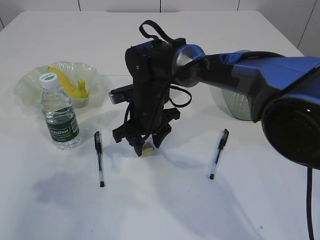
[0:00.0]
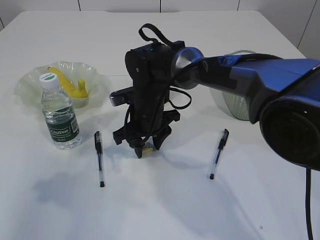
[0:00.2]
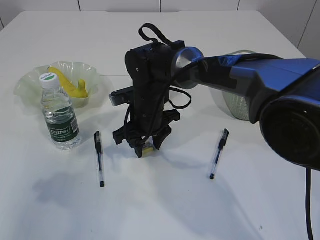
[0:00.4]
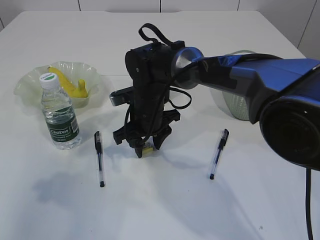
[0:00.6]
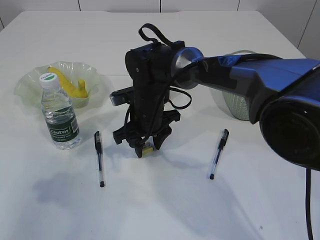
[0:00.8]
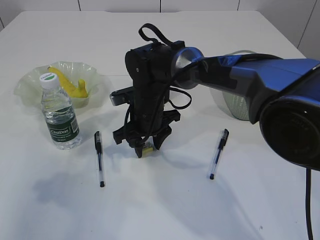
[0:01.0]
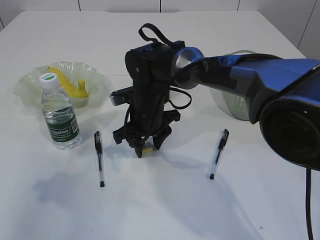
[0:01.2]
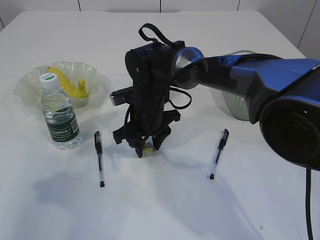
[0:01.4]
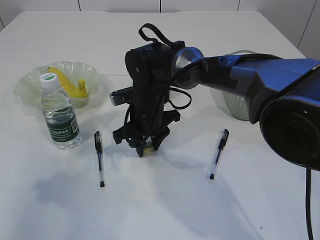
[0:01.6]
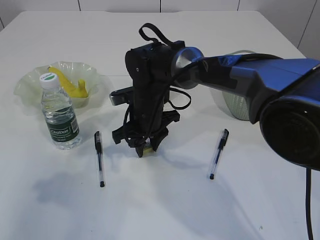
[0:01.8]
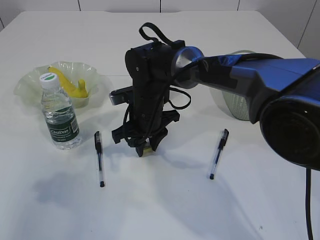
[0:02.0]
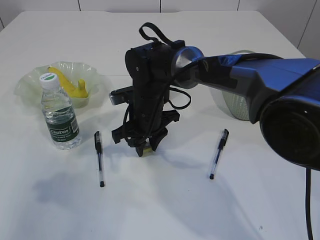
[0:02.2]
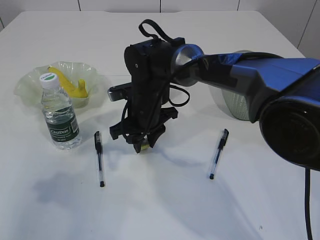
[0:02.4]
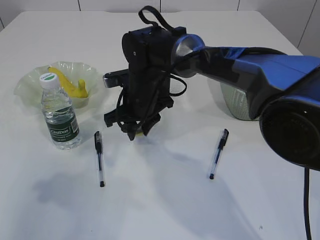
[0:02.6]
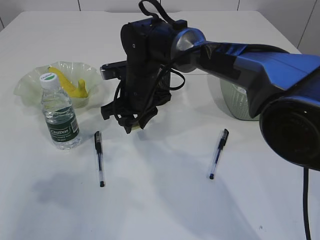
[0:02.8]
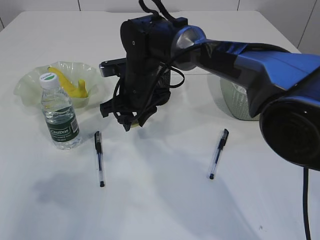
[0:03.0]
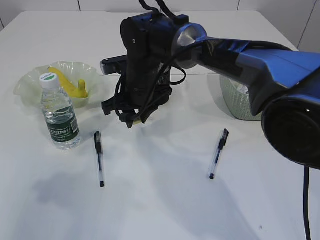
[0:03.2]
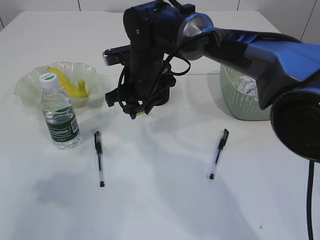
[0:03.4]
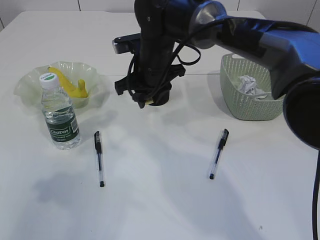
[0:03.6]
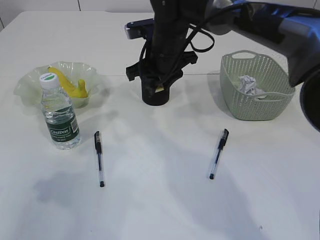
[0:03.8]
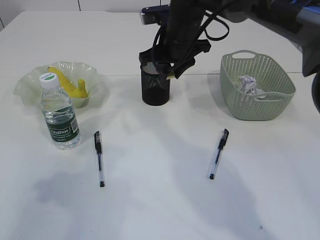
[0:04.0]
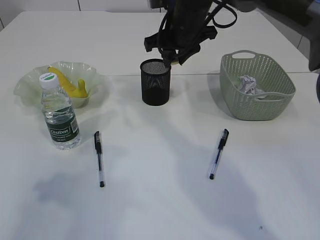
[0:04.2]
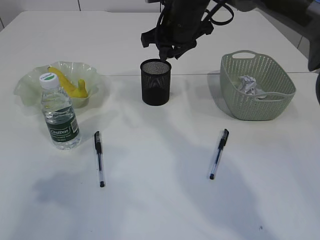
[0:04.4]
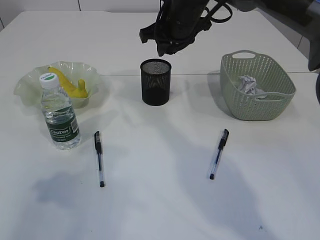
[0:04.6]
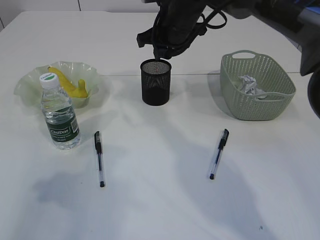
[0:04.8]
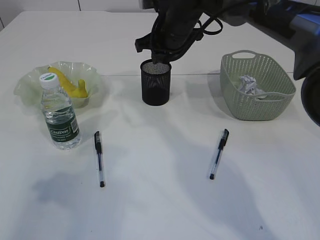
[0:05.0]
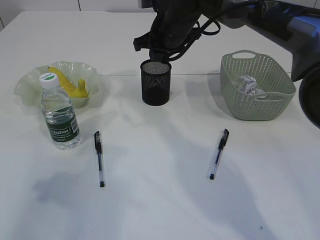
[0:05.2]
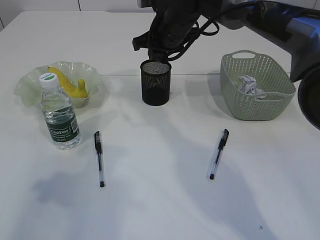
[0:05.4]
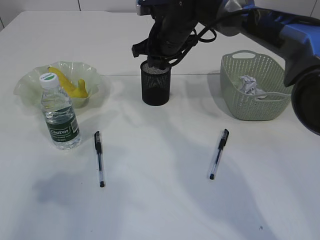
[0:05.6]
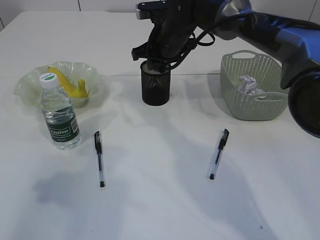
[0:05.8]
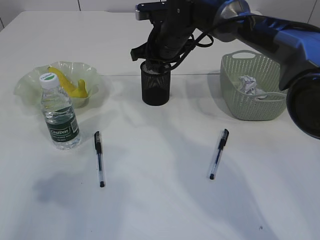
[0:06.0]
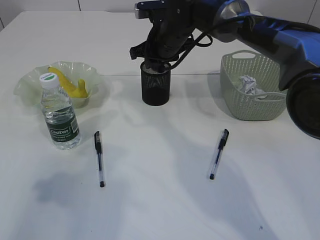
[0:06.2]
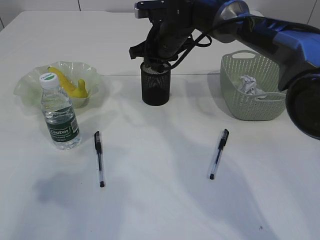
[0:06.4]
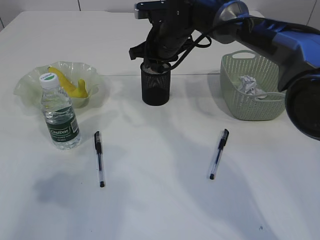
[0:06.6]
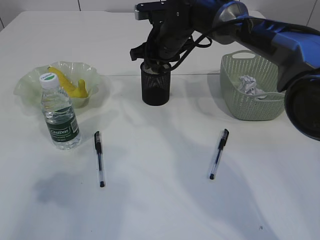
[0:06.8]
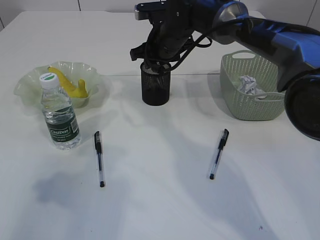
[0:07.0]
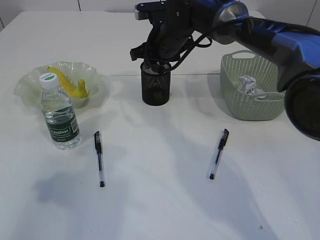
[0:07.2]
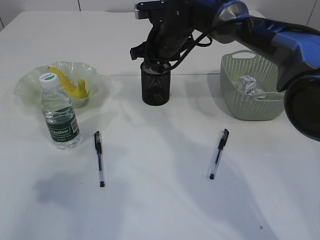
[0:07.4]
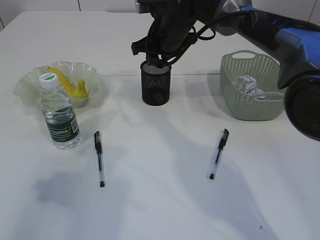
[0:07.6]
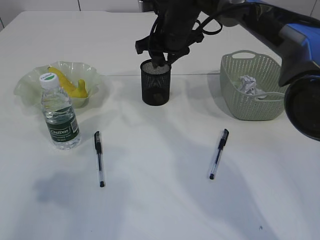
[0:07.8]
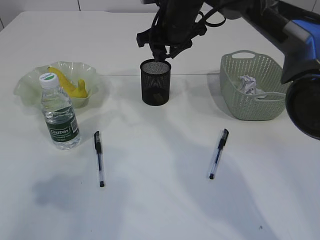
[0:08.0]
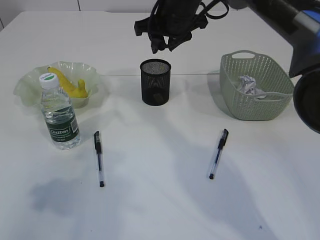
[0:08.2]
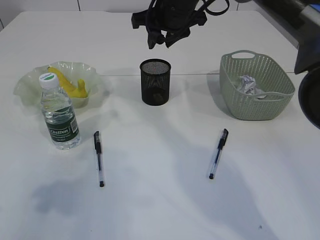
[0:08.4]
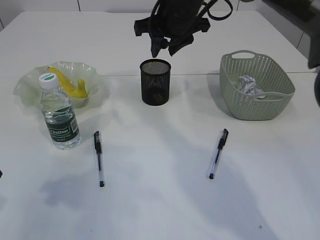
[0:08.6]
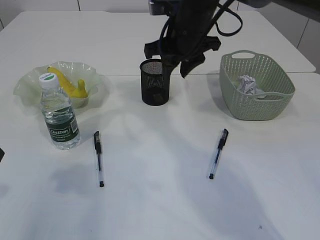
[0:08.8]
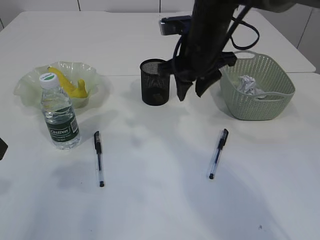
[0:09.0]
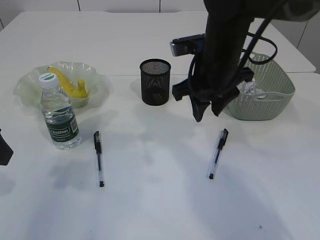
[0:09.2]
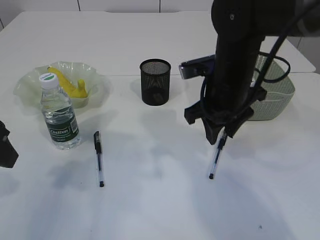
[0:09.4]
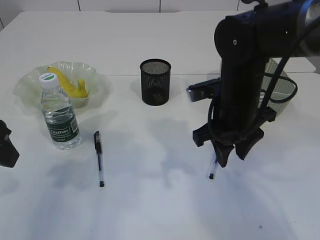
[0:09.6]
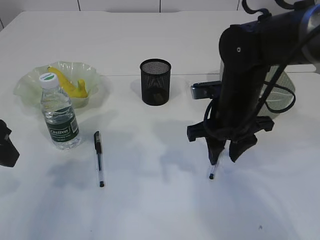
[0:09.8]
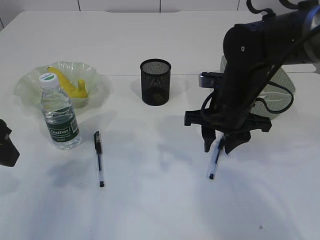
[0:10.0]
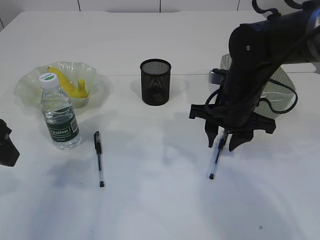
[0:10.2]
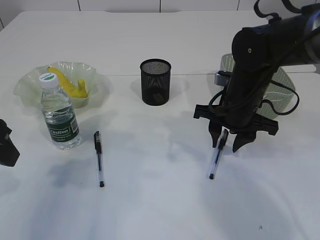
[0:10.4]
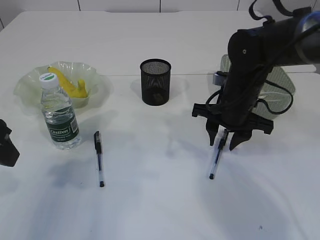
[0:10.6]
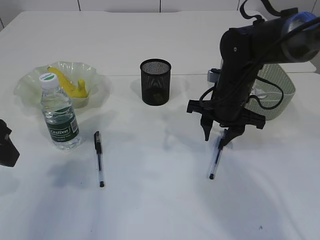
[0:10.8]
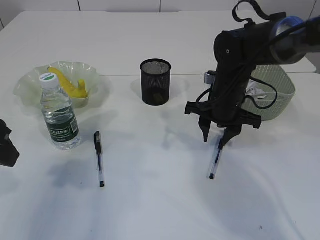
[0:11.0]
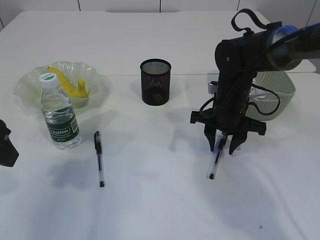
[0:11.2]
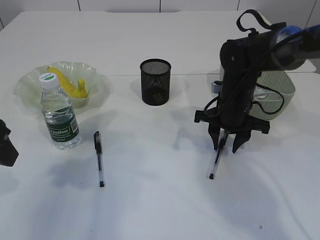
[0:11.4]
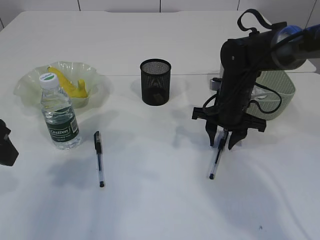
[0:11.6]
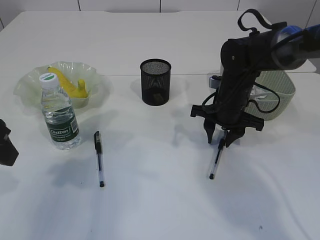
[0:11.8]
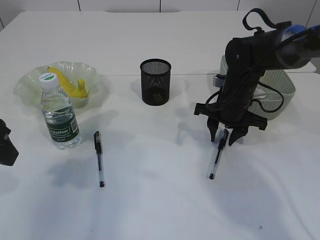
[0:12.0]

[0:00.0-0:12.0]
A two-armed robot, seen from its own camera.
Step, 0:00.0 to 0:02.6: Pick up the eraser.
Step, 0:02.8 to 0:08.0: Place the eraser into the pen holder.
0:00.0 to 0:01.6: Neither gripper changes place.
0:01.6 to 0:03.0: The grippers stay close to where they were, moving slightly.
0:03.0 to 0:04.4: The right gripper travels upward and to the right by approximately 15 cm.
0:04.4 to 0:06.0: The right gripper heads downward, covering some 5 cm.
0:06.0 to 0:07.6: Both grippers stay about where they are.
0:07.6 to 0:09.0: The right gripper goes roughly 10 cm backward.
0:09.0 to 0:10.4: The right gripper shifts approximately 10 cm downward and to the right.
0:10.4 to 0:12.0: The right gripper is displaced forward by approximately 5 cm.

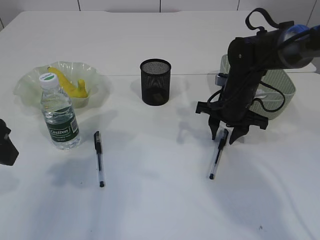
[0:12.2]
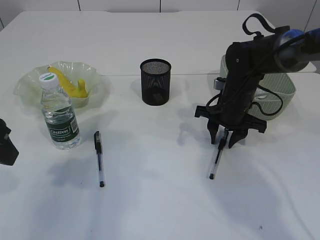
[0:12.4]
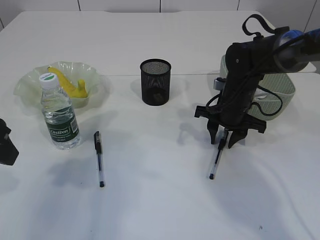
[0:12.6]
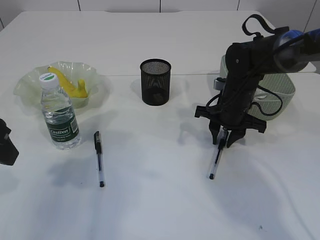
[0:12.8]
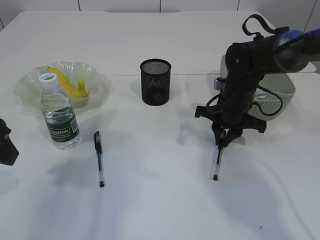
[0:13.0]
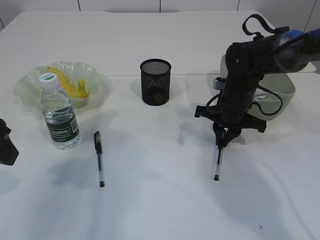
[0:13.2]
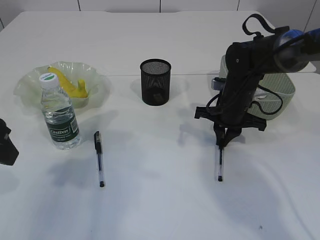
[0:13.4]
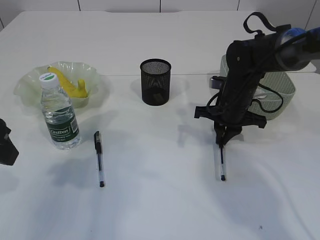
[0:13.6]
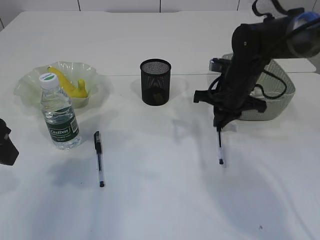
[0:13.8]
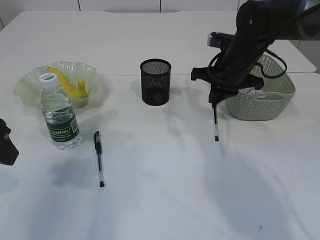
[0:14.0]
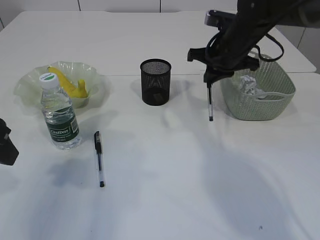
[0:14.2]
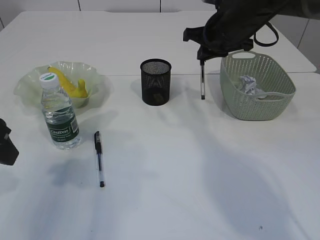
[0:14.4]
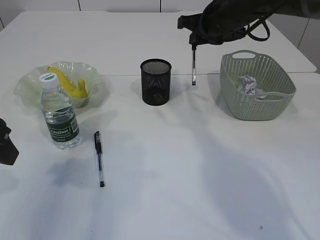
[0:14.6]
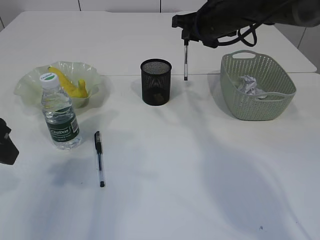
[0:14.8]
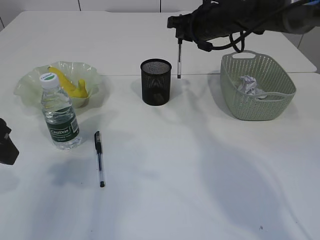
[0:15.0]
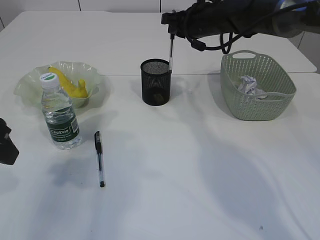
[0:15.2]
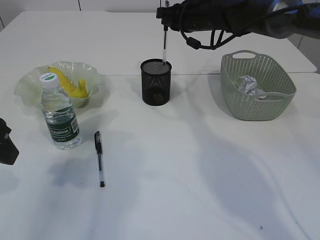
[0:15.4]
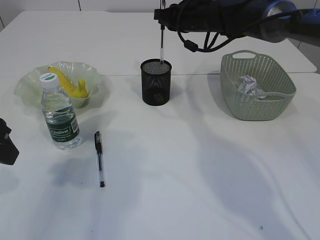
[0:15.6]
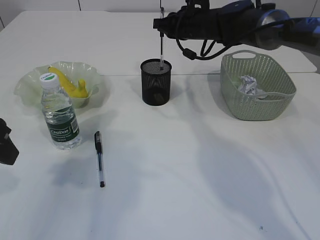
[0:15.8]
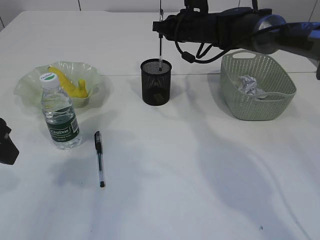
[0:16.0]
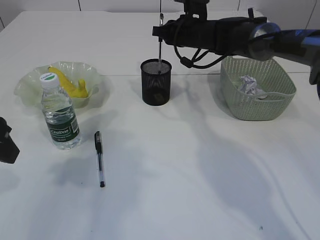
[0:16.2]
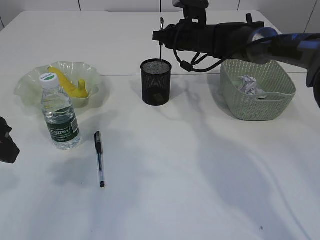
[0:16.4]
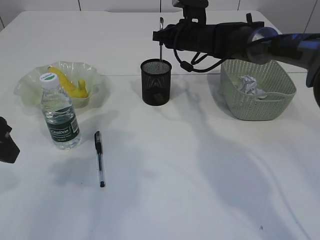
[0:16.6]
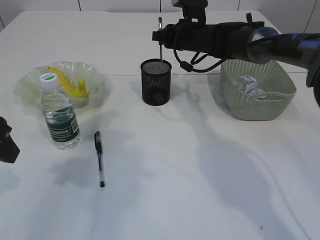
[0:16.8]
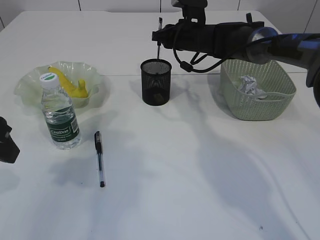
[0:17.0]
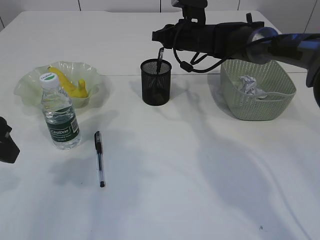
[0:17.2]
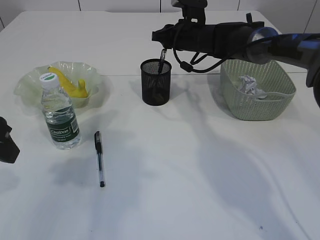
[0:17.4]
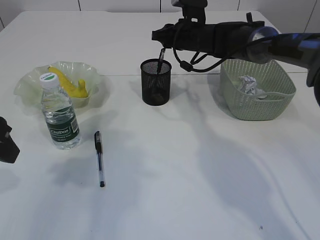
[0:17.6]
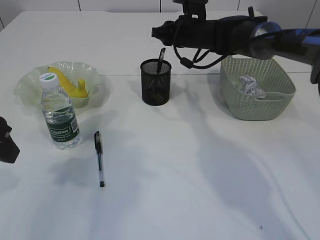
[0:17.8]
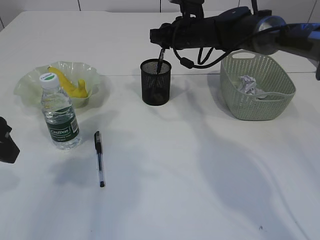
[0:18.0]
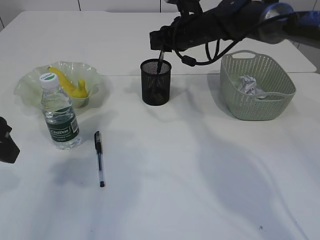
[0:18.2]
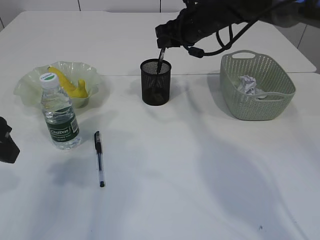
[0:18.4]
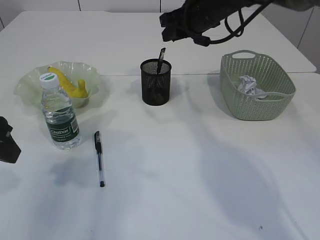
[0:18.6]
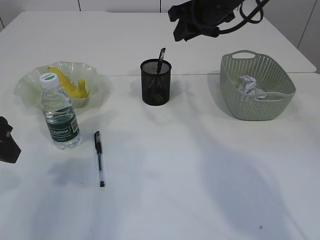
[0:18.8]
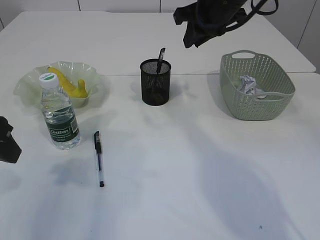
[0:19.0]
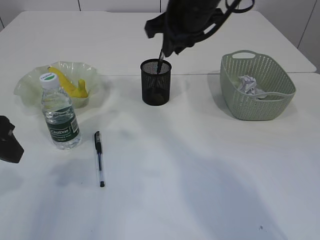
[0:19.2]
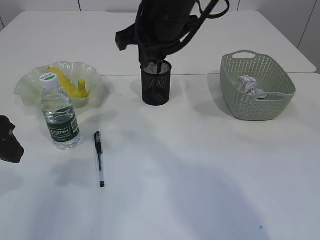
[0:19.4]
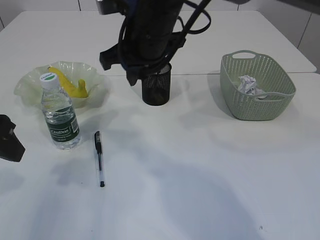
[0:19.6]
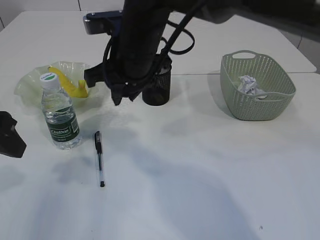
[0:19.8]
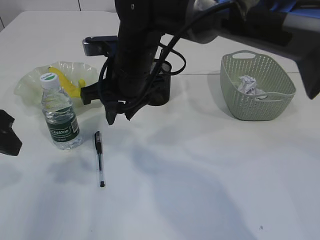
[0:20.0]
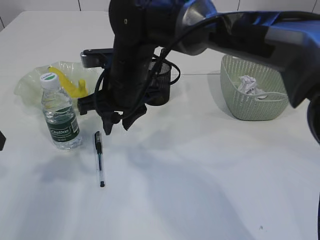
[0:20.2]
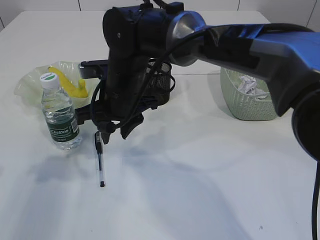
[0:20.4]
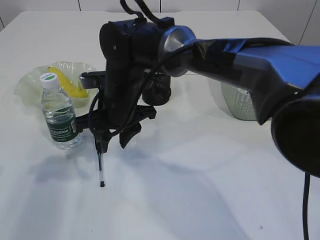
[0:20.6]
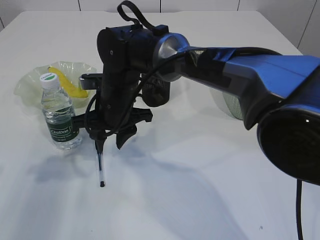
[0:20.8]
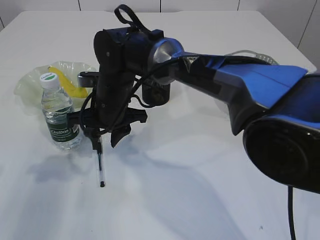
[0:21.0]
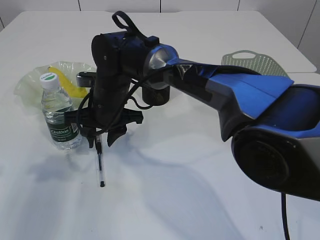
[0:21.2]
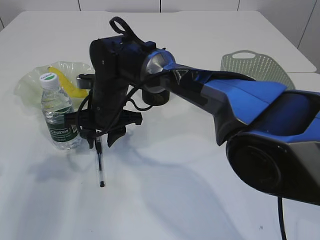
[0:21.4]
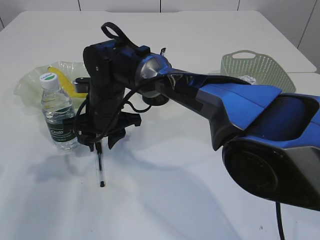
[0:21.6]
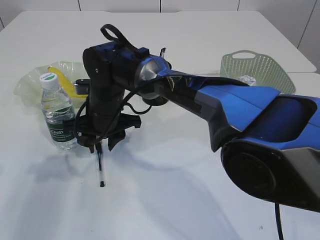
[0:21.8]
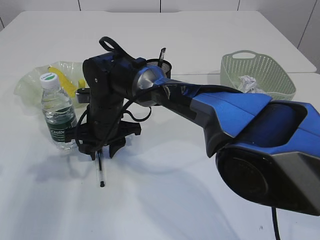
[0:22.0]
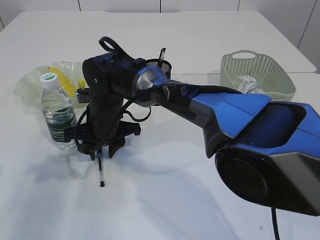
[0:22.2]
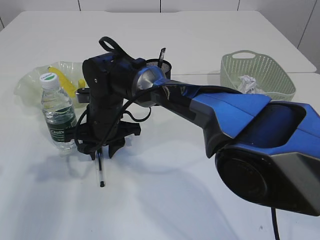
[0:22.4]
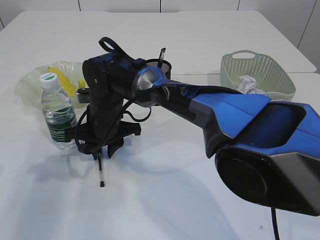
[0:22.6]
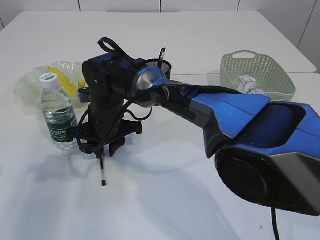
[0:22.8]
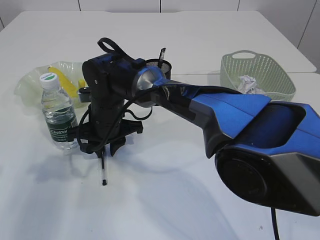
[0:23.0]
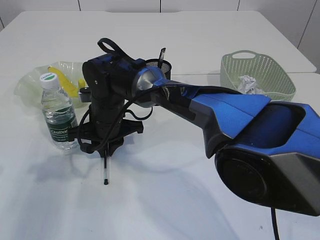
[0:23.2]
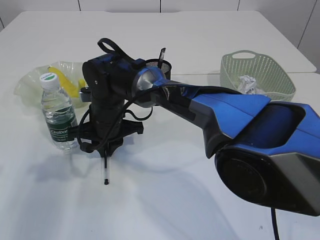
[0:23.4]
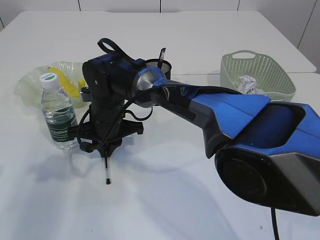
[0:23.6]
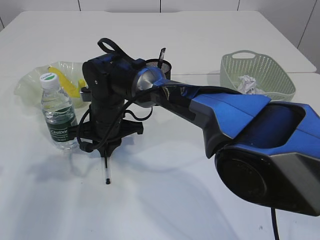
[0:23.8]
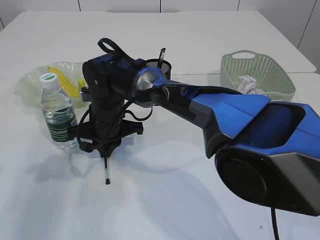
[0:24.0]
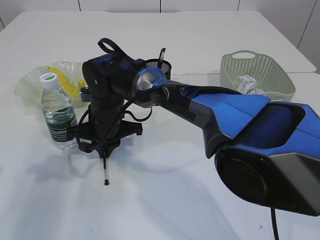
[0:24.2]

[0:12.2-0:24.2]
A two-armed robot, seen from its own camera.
Step, 0:14.0 to 0:17.6: Place the pen into the pen holder.
0:12.2 to 0:13.8: The right gripper closes its fingers.
0:13.8 to 0:15.2: The right gripper travels upward and forward by some 15 cm.
0:15.2 to 0:16.6: The right gripper changes place by about 5 cm.
0:16.6 to 0:18.2: The grippers make only small movements.
0:18.2 to 0:19.8: The right gripper shifts about 20 cm backward and to the left.
0:19.8 to 0:21.2: The right gripper travels downward and to the left by approximately 10 cm.
0:22.6 to 0:24.2: The right gripper closes up.
